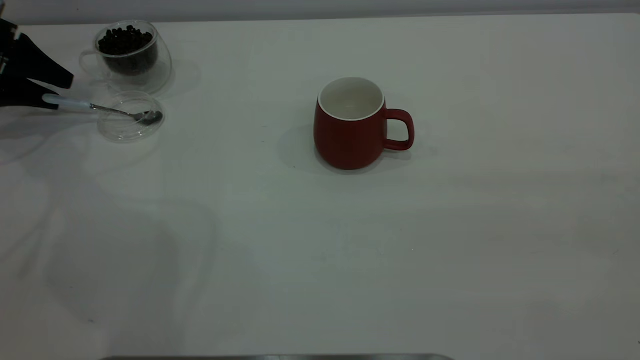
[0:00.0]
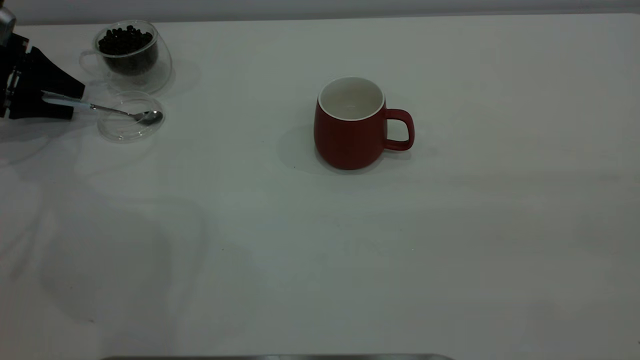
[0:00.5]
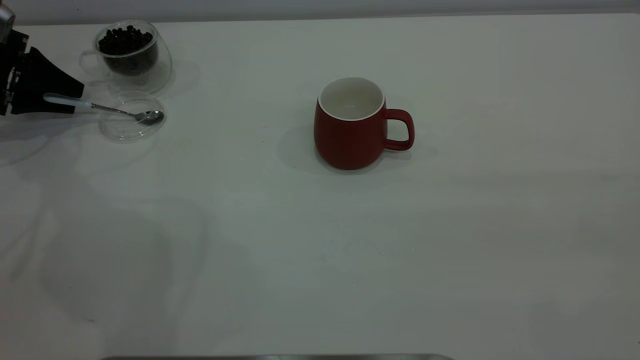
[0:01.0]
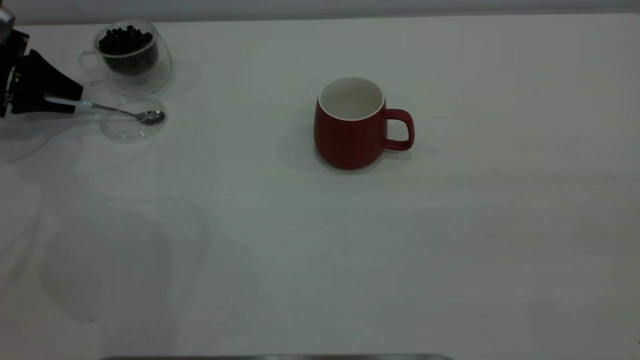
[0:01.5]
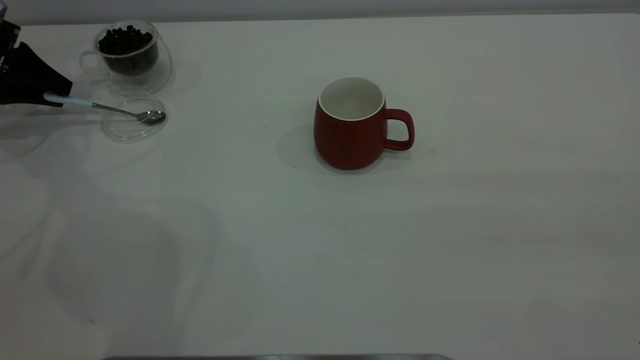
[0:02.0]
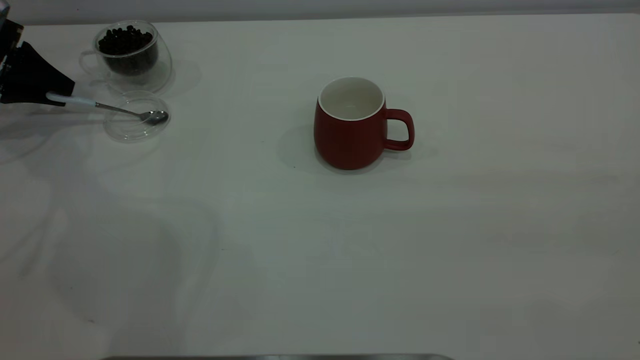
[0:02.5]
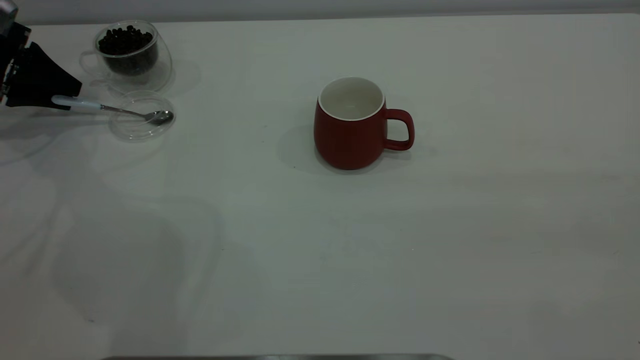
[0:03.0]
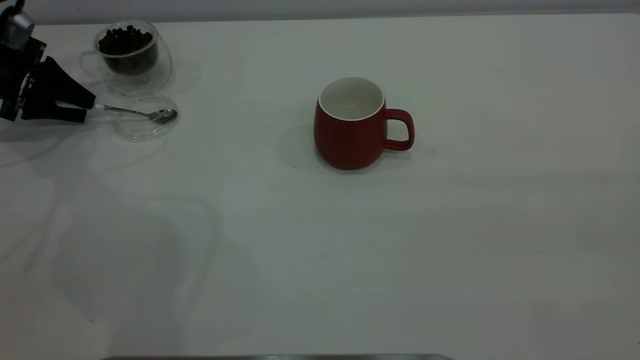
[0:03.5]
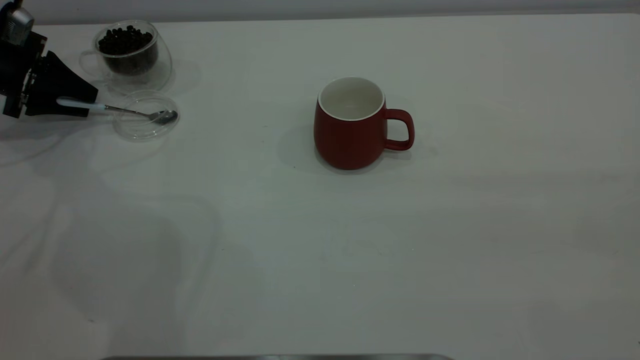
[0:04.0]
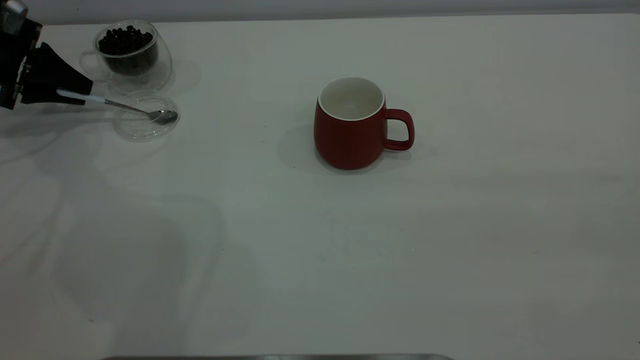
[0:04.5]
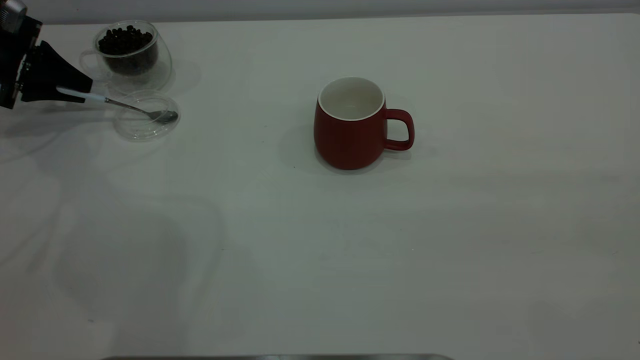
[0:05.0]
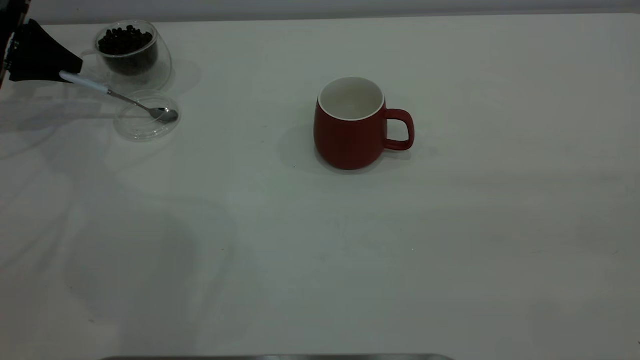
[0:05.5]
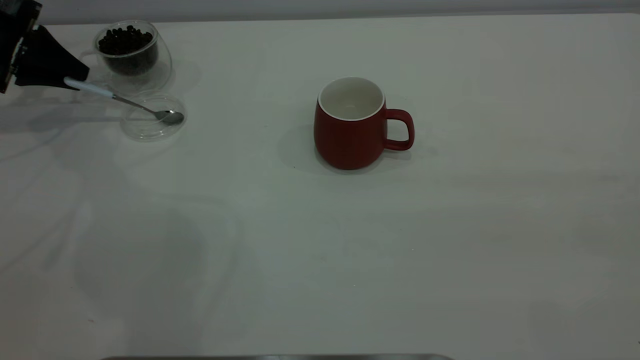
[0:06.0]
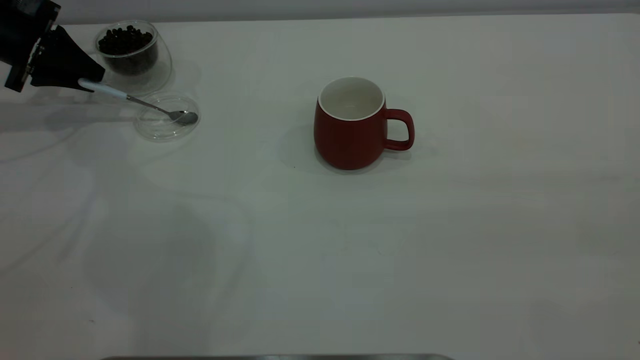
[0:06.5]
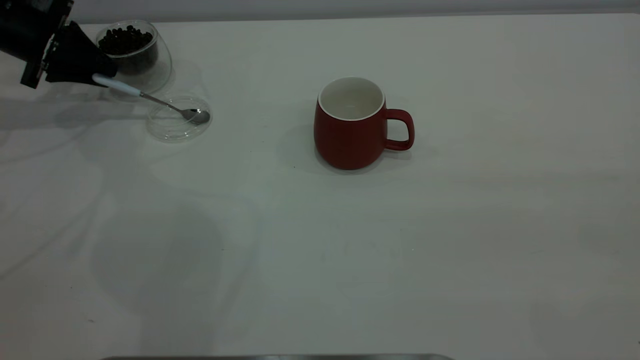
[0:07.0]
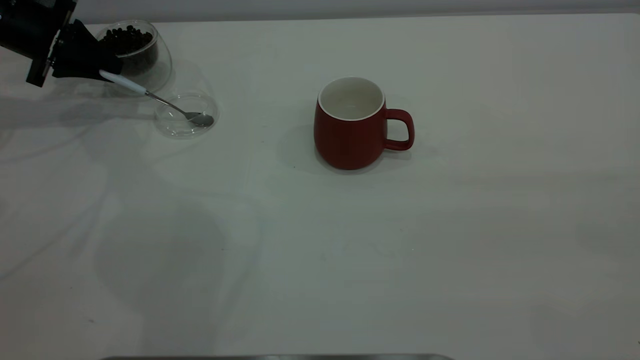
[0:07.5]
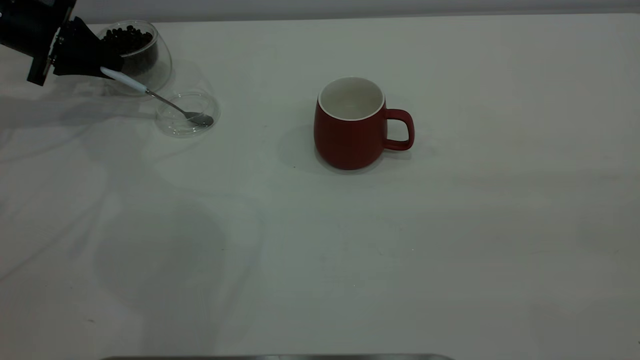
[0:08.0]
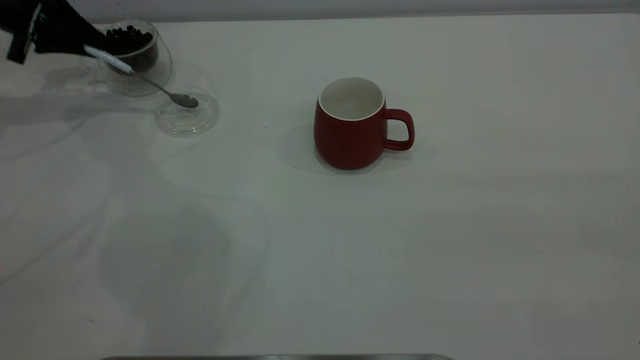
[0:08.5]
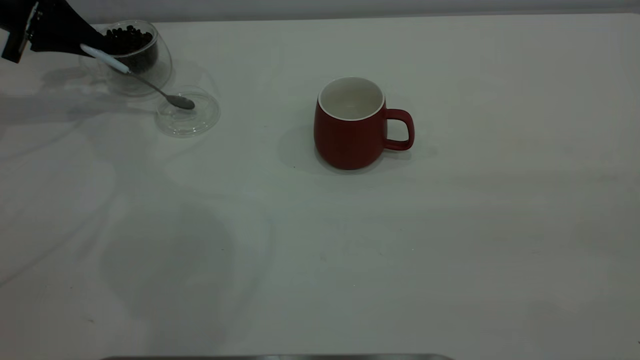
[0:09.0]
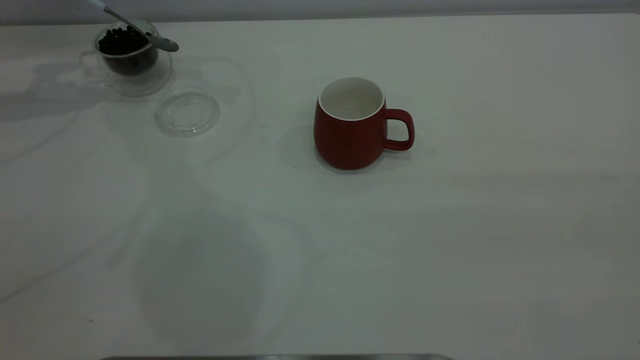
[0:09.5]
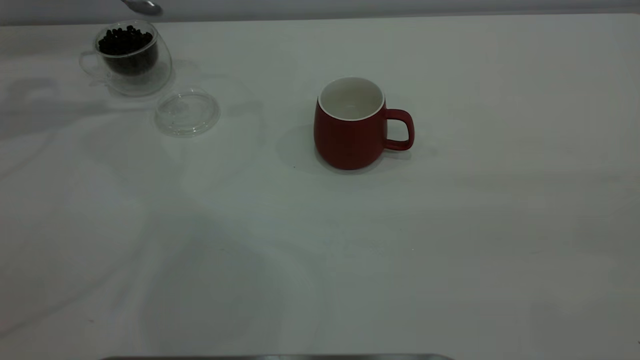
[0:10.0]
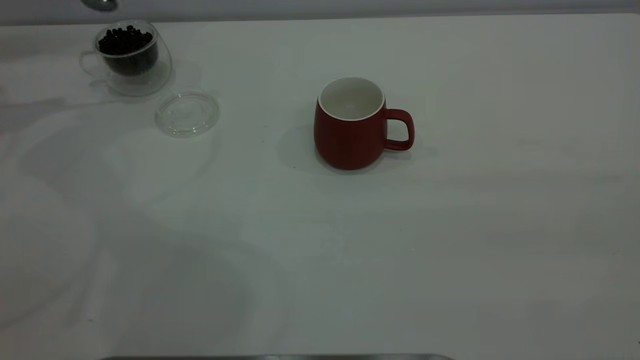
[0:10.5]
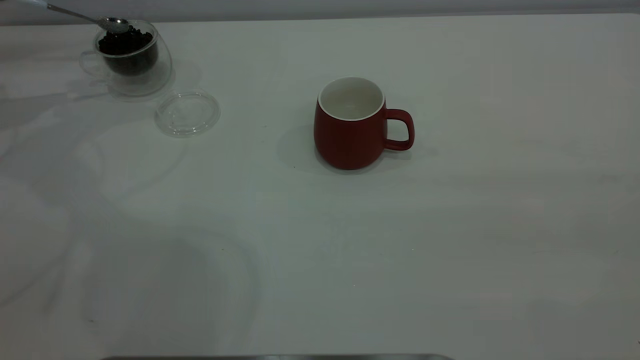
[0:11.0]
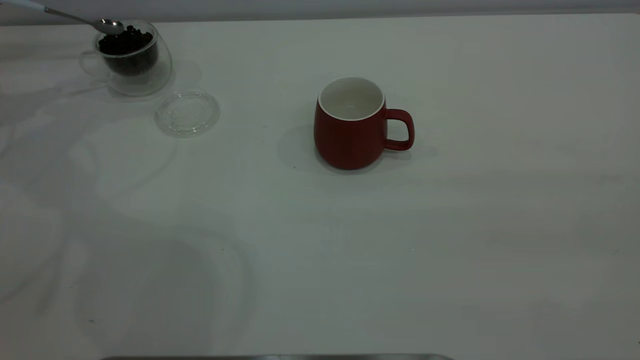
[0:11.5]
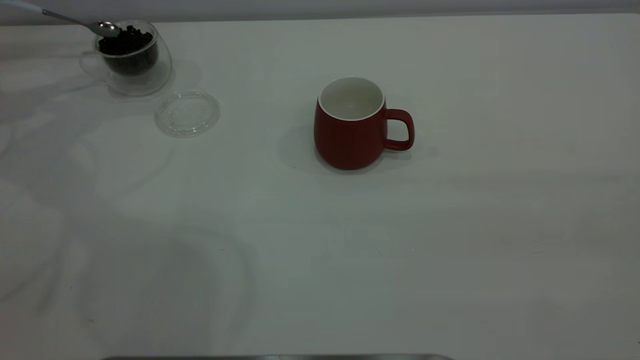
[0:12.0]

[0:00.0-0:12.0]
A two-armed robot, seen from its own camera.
Task of the whole recording: the right gripper place the red cup in the center of the table, the left gripper take the blue spoon from the cup lid and scoop out the coffee beans from the coffee cup and put them into the red cup, the left gripper put the spoon back into the cup lid.
Step, 0:00.0 to 0:09.0: Pick up the spoon.
0:00.0 to 0:02.0: The left gripper closes up.
0:02.0 to 0:04.0: The grippers make only small movements.
0:04.0 to 0:06.0: The left gripper closes.
0:06.0 to 0:08.0: There are only small adjustments of the grippers.
0:08.0 to 0:10.0: The left gripper moves upward, approximately 15 cm.

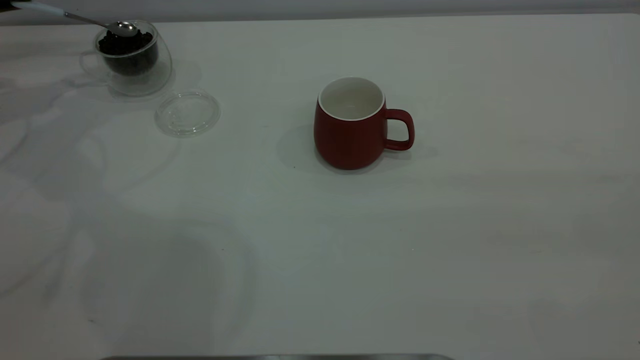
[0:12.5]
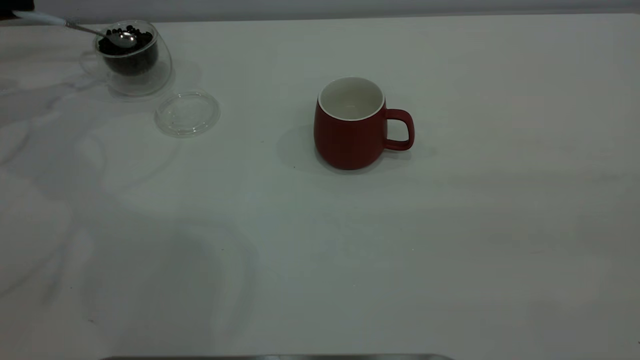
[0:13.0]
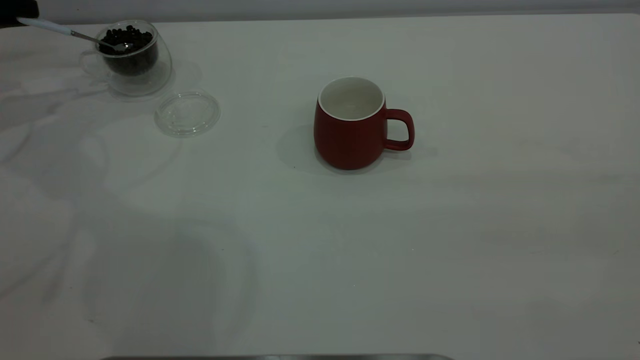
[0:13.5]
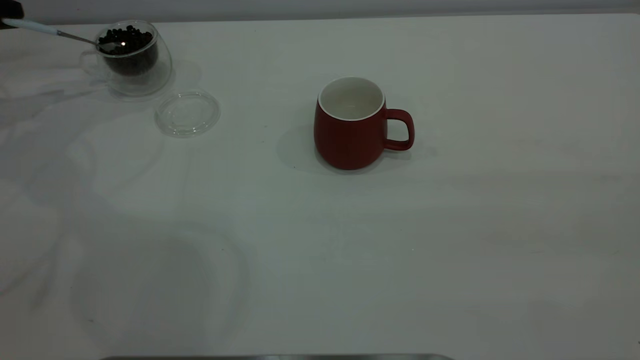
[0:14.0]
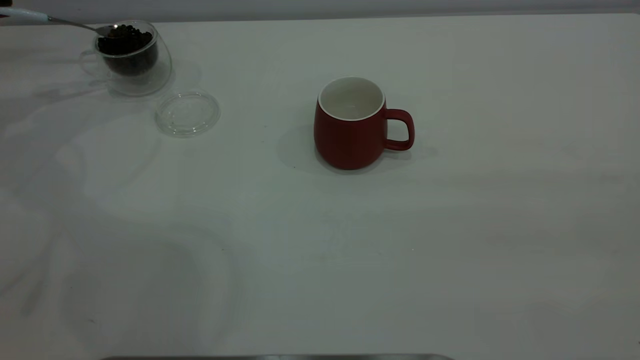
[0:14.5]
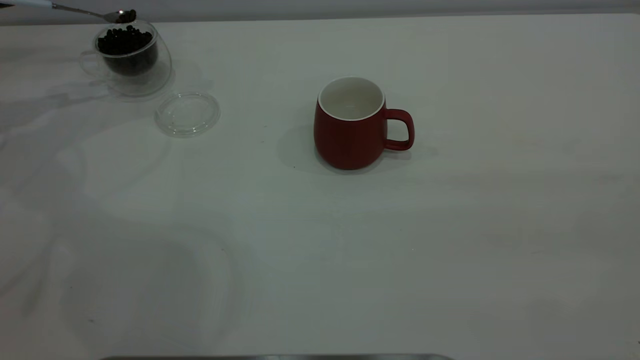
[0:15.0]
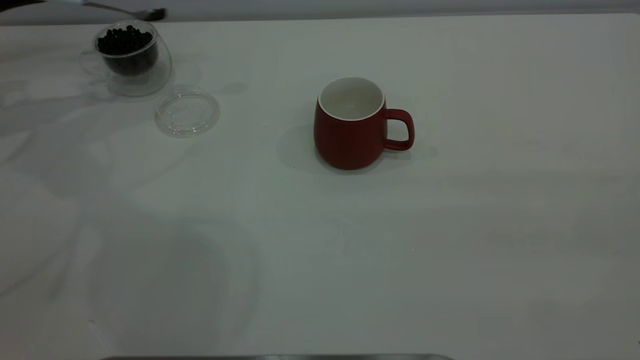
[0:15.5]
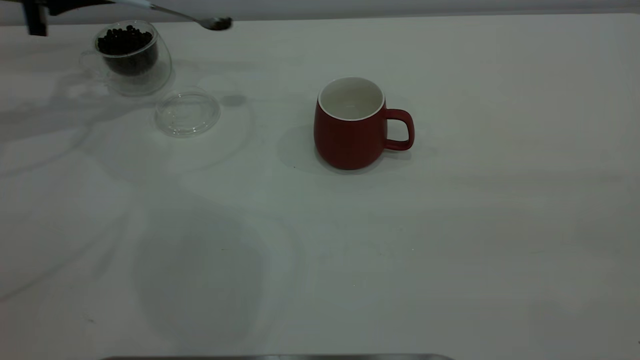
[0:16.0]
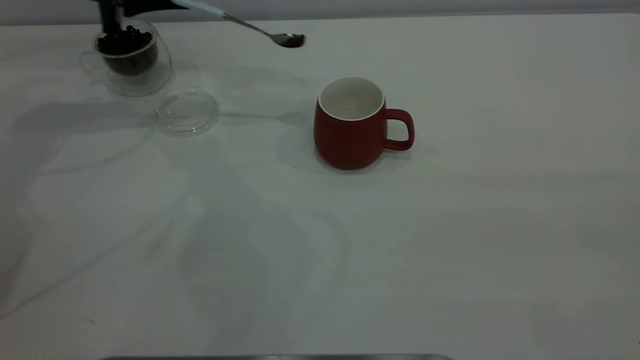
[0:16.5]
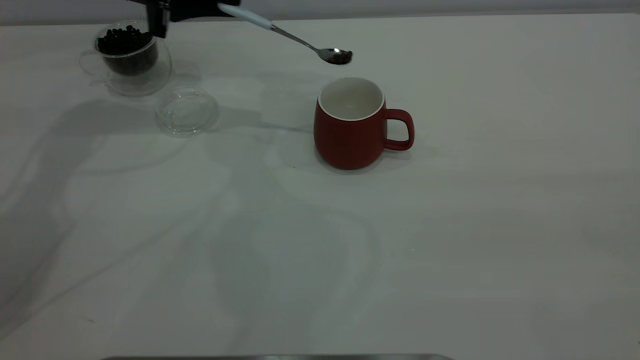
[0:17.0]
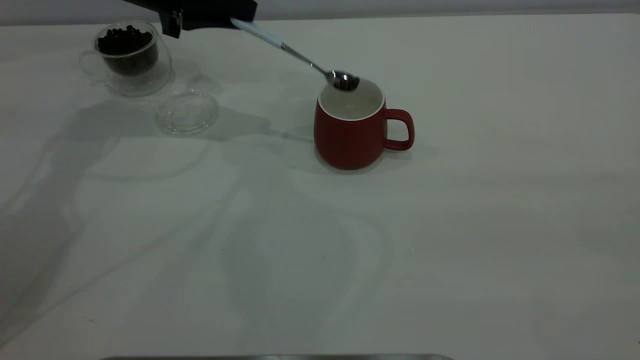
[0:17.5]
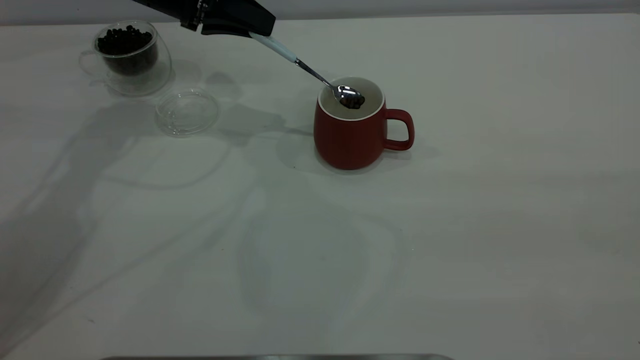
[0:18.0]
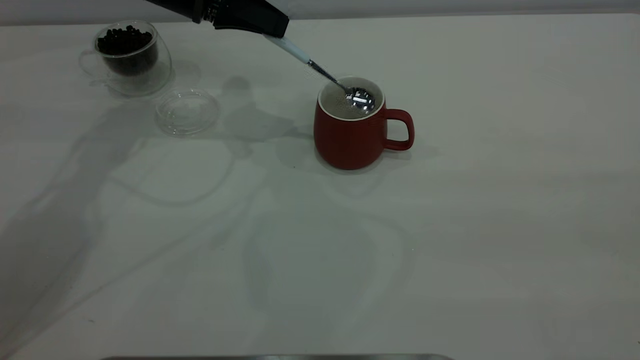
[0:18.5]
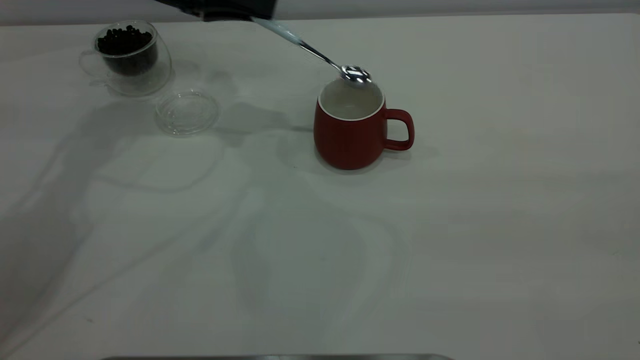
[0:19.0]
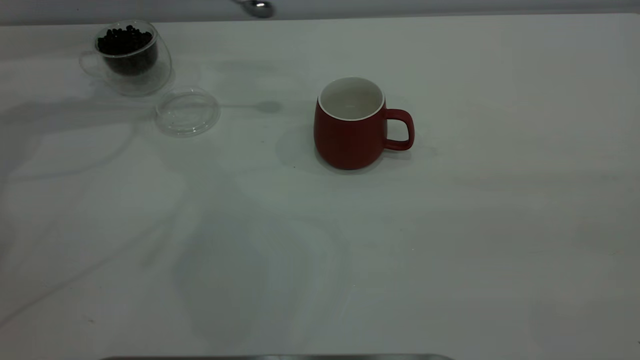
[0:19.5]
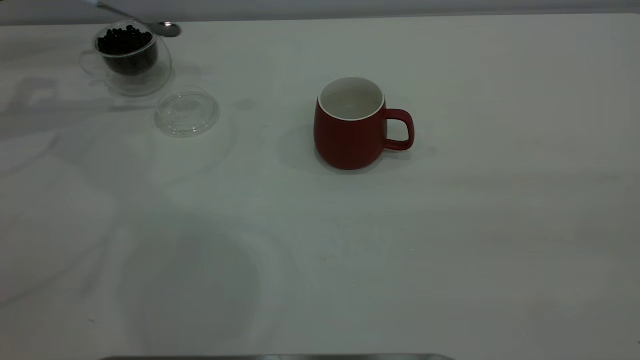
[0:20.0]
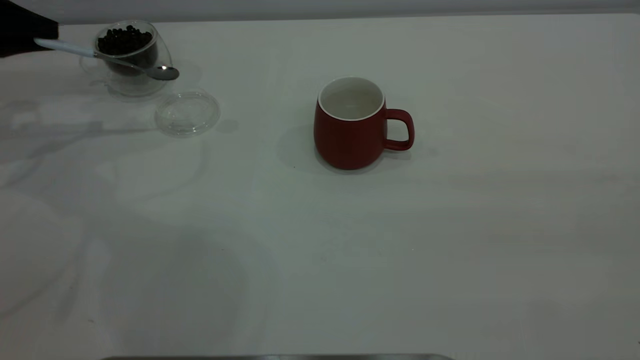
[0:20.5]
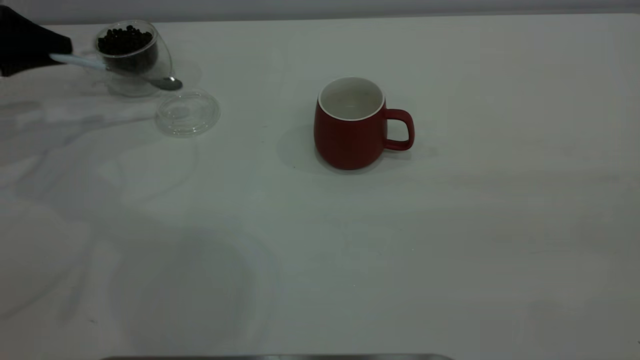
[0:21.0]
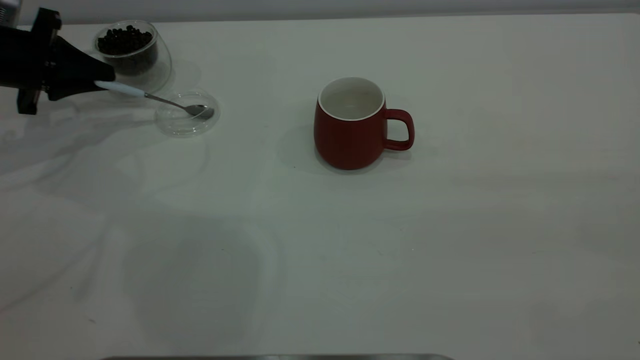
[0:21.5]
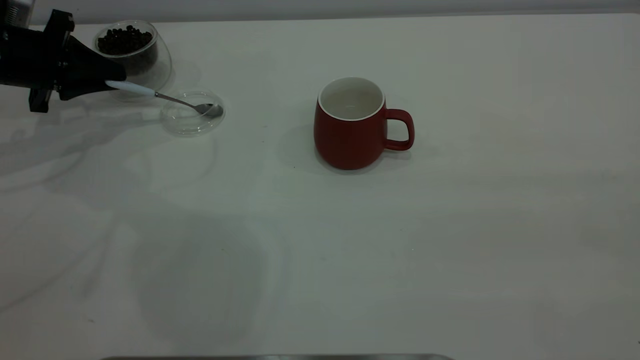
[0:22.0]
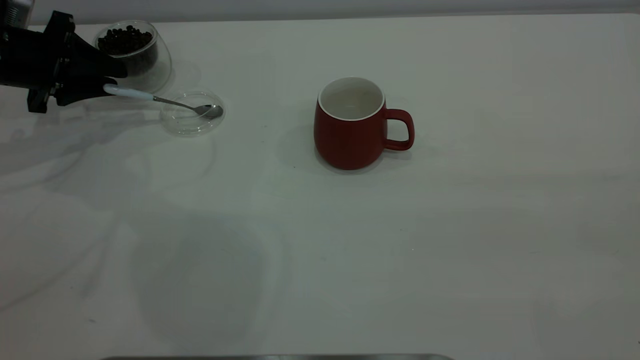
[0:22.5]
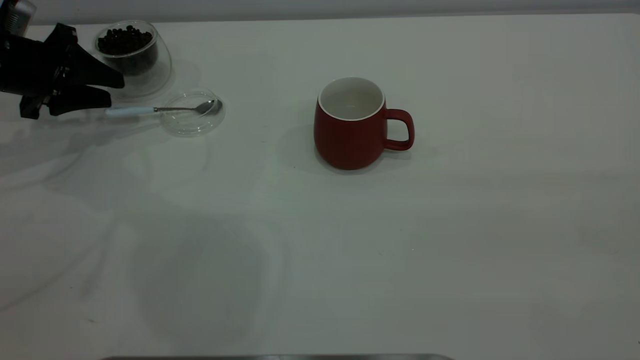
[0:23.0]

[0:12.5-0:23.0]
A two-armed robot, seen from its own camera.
Task of the whole recording: the right gripper place the red cup in the center of the table, the left gripper take the blue spoon from the cup lid and scoop out the coffee beans from the coffee cup and put them into the red cup, the left gripper put the spoon back into the cup lid.
Step, 0:12.5 to 0:19.0: Scoop a spoonful of beans into the cup.
0:14.5 to 0:16.5: The left gripper moves to the right, approximately 20 cm.
0:16.5 to 0:19.0: The left gripper heads to the right, covering roughly 5 cm.
0:19.0 to 0:21.0: The left gripper is displaced to the left by about 20 cm.
0:21.0 to 0:23.0: The left gripper changes place by some 5 cm, and opens up.
